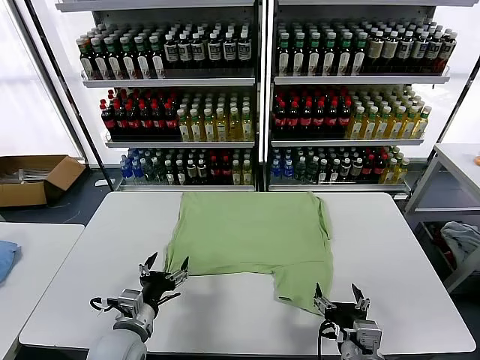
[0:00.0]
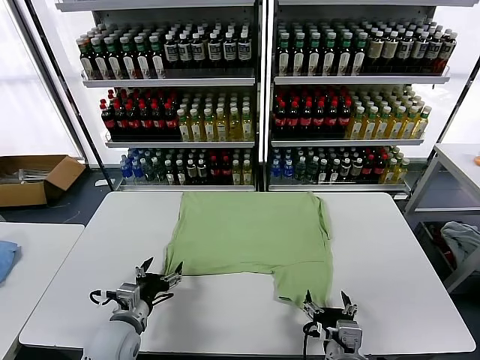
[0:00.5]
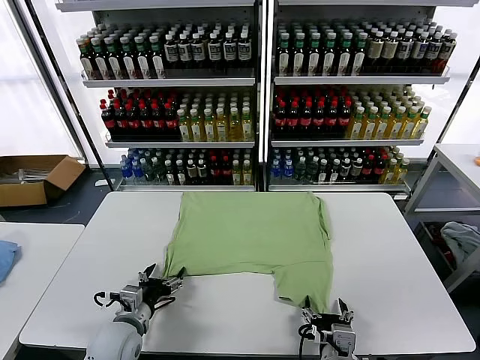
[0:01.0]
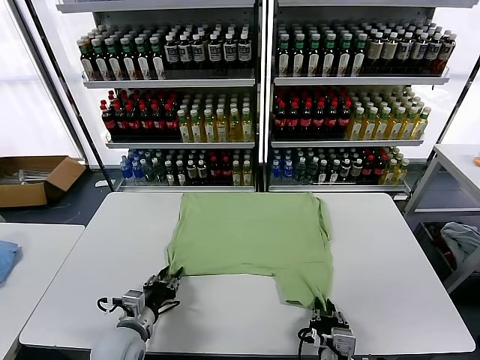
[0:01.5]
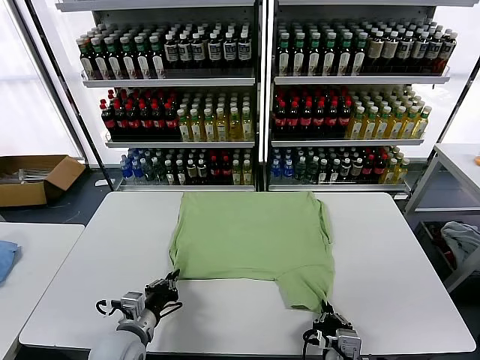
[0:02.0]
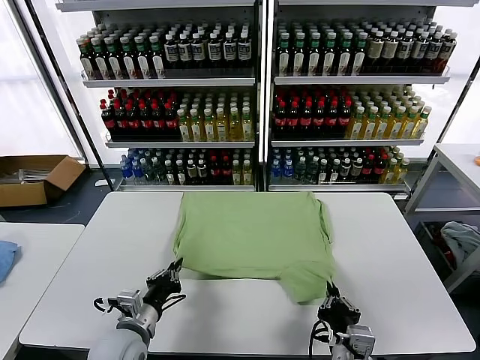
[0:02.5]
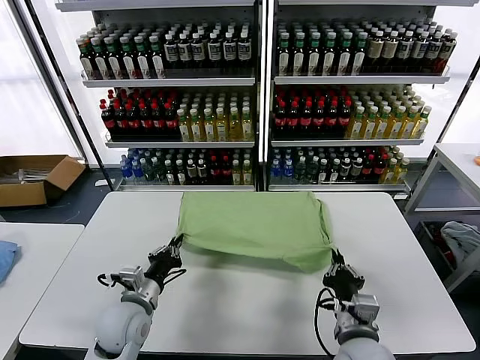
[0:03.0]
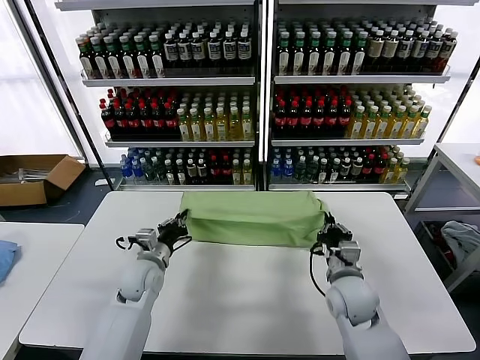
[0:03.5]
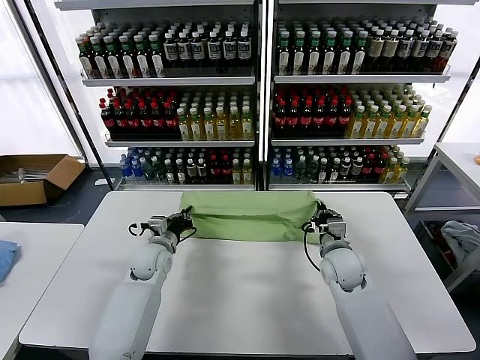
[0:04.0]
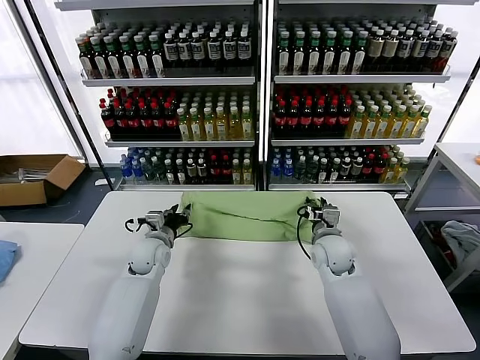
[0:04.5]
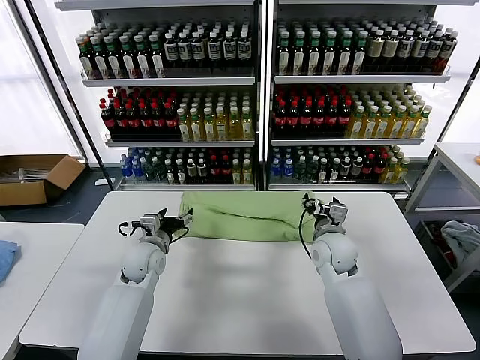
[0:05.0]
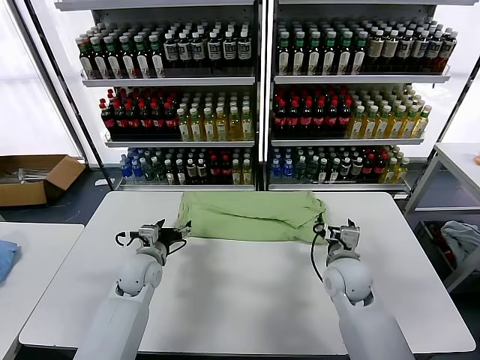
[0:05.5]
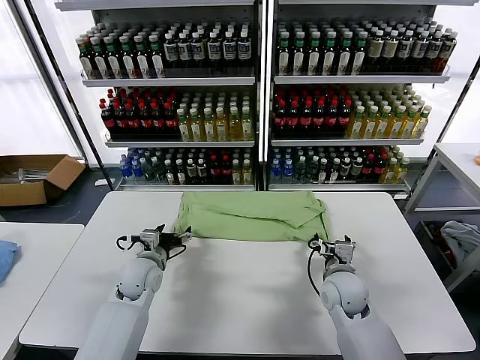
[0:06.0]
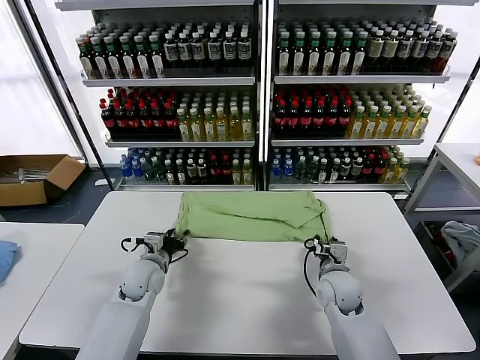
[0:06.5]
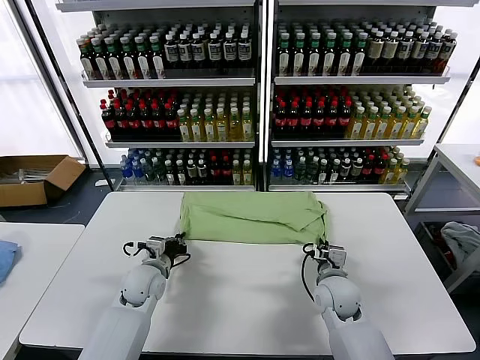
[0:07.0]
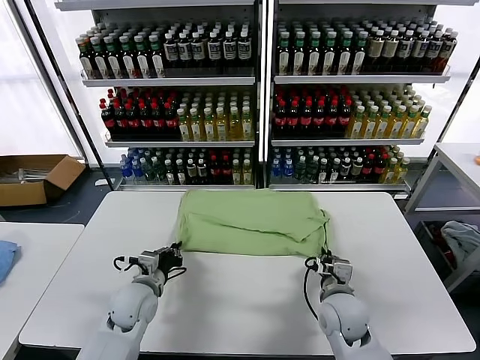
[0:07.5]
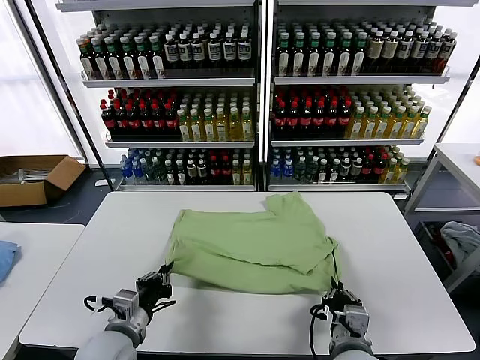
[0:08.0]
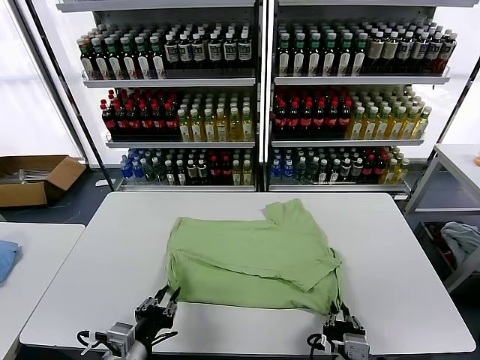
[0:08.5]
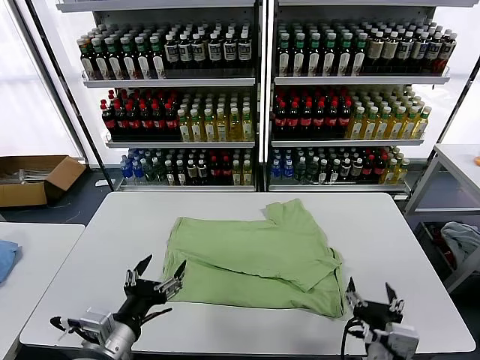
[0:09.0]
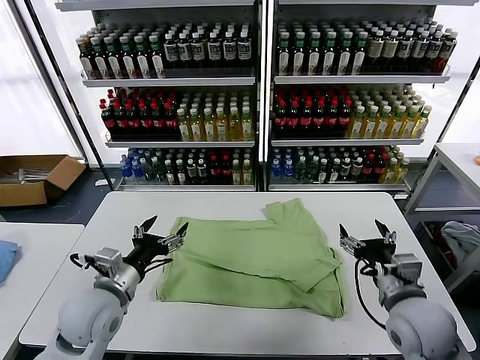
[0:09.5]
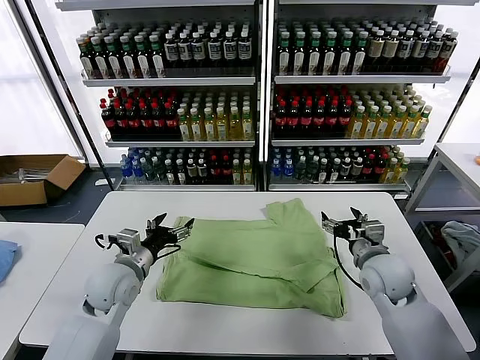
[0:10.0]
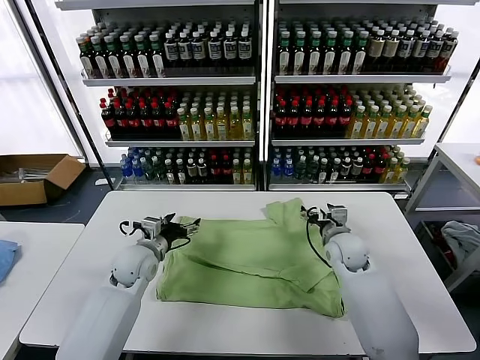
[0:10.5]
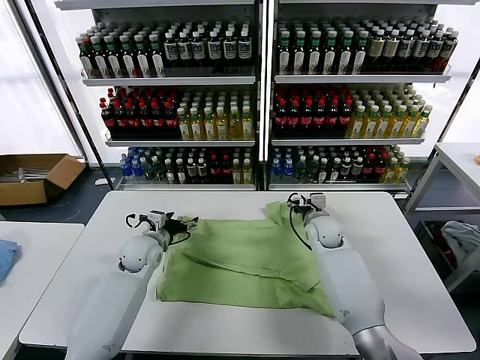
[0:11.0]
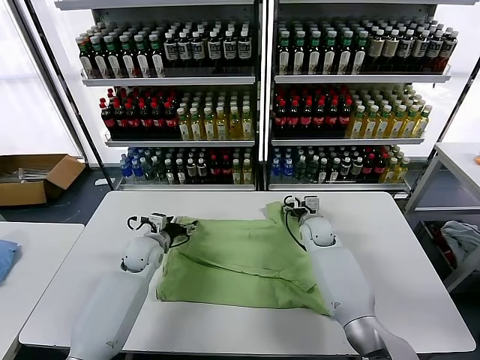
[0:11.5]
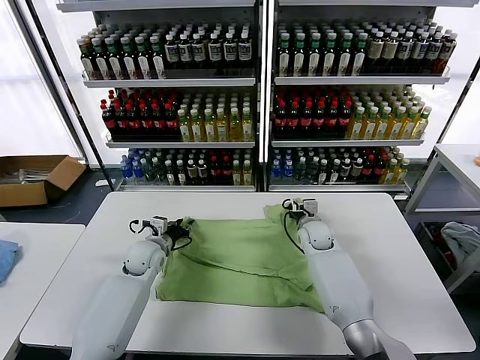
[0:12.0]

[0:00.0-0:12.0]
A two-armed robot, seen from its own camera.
Task of the whole recording: fold and organize the clothes.
Step, 0:00.0 to 0:01.5: use both grippers simultaneously to clamp the lower edge of the clothing fabric.
Step, 0:02.0 to 0:04.5: use both grippers to drag the lower edge of the fabric forward and fold it over the upper edge.
Step, 0:05.0 to 0:08.5: Drag the clothes downward with both gripper.
0:02.0 to 0:04.0: Both grippers travel together forward, about 25 cm.
0:04.0 to 0:06.0: The two grippers go approximately 5 cm backward. The right gripper opens its fingers, while the left gripper opens.
0:06.0 to 0:08.0: The two grippers go about 20 cm backward. The right gripper closes its fingers, while the left gripper closes.
0:08.0 to 0:10.0: The right gripper heads forward and to the right, covering about 20 cm, and opens; the left gripper is displaced forward by some 15 cm, and opens its fingers.
0:10.0 to 0:12.0: The left gripper goes approximately 15 cm forward and downward, and closes up, while the right gripper shifts roughly 20 cm forward, downward and to the left, and closes its fingers.

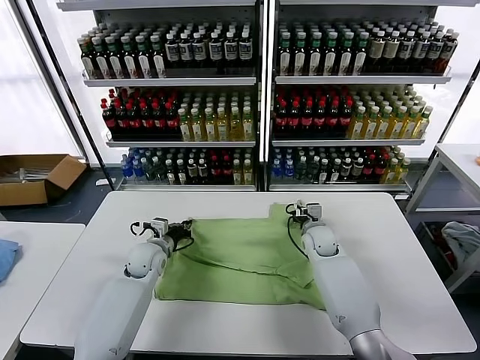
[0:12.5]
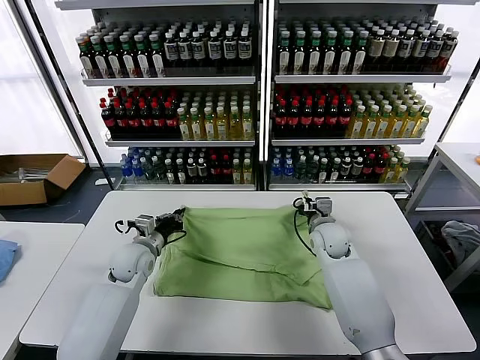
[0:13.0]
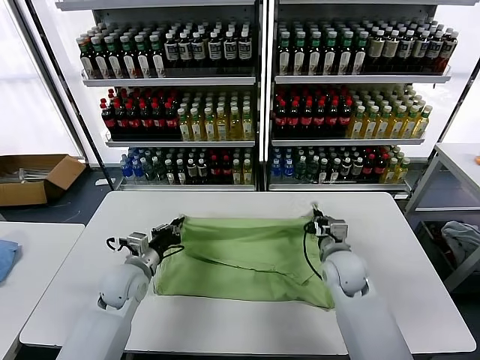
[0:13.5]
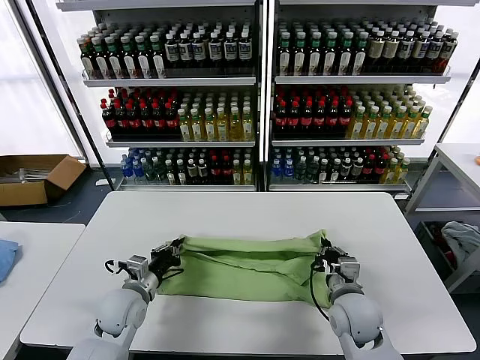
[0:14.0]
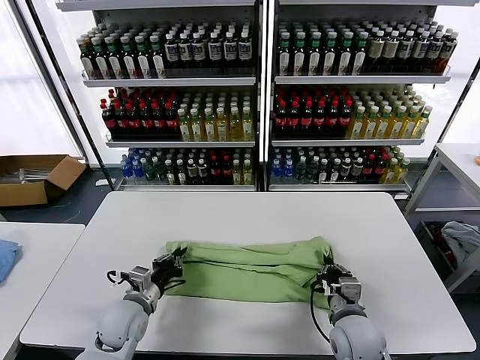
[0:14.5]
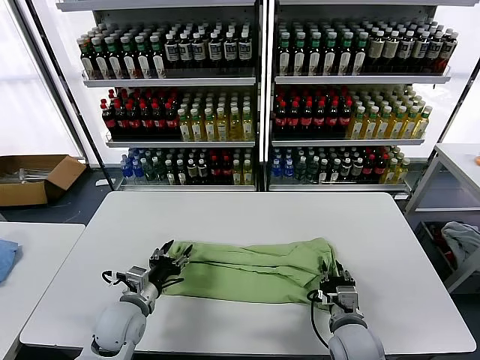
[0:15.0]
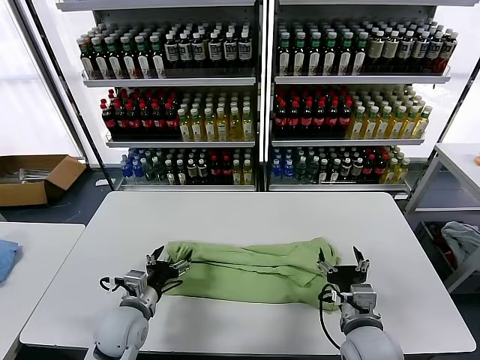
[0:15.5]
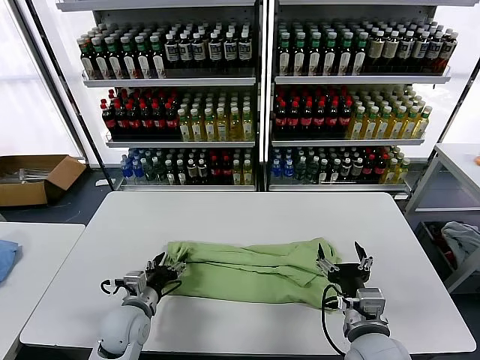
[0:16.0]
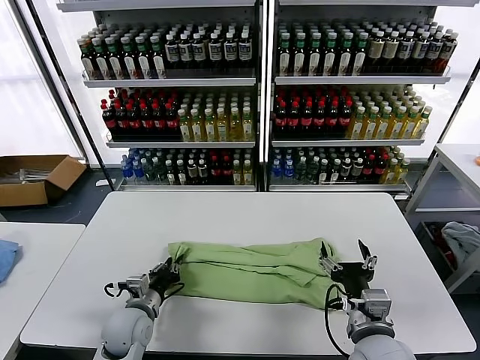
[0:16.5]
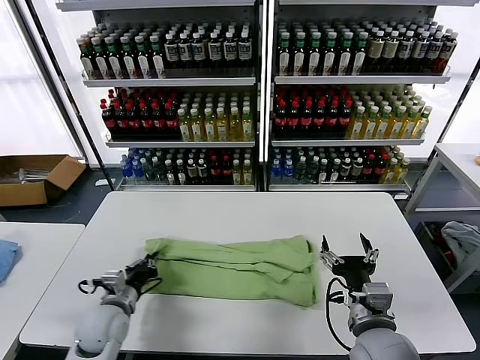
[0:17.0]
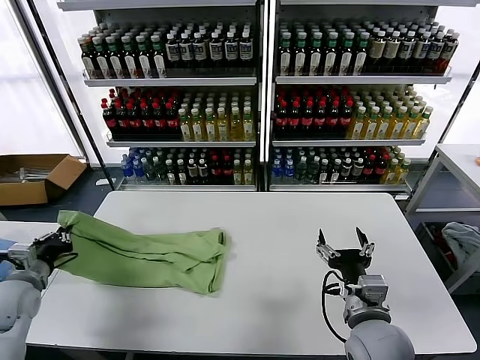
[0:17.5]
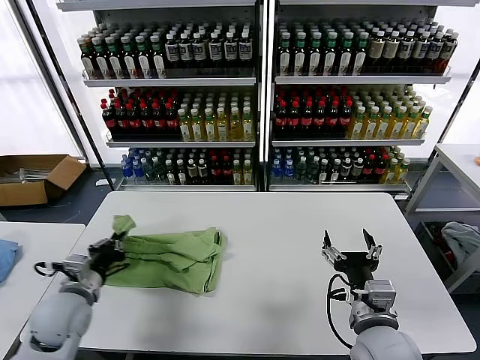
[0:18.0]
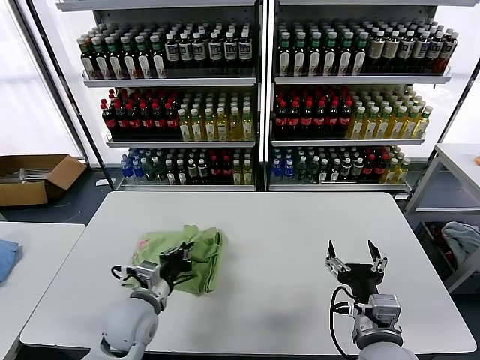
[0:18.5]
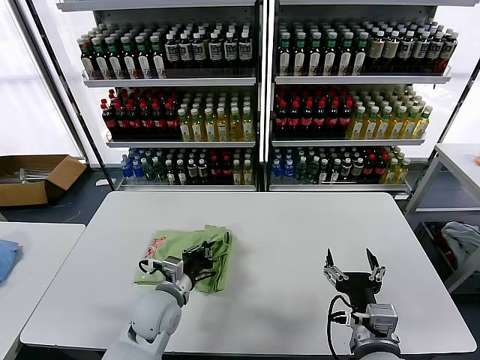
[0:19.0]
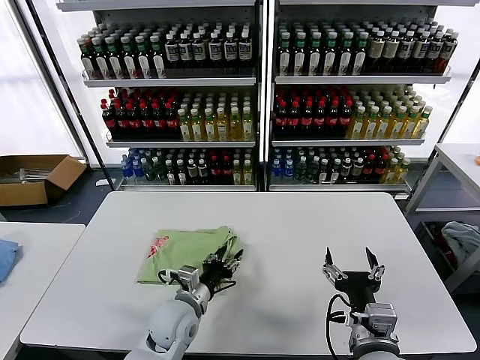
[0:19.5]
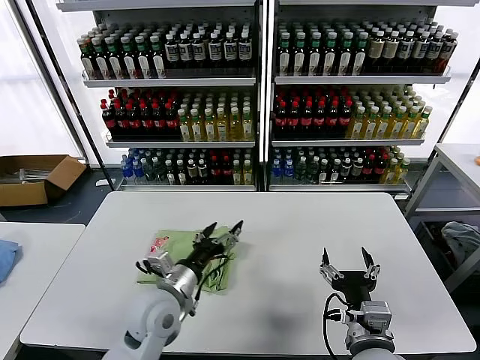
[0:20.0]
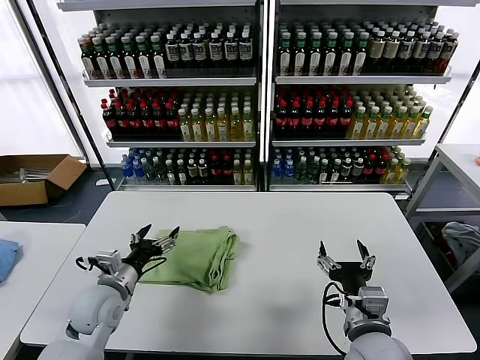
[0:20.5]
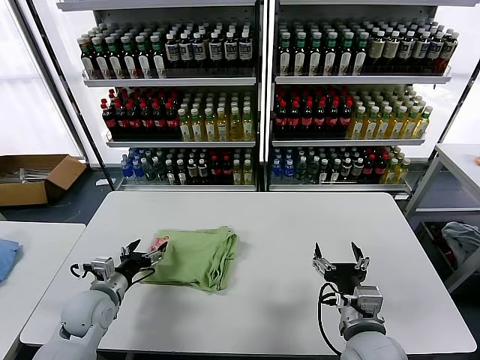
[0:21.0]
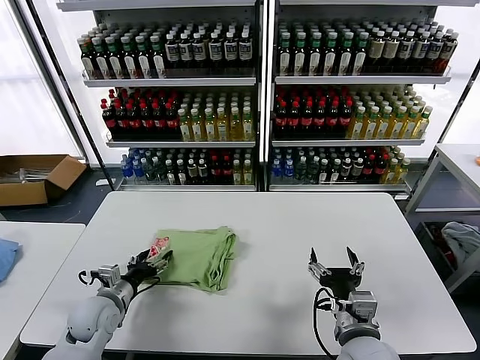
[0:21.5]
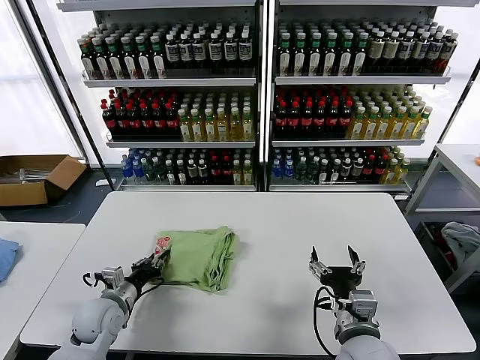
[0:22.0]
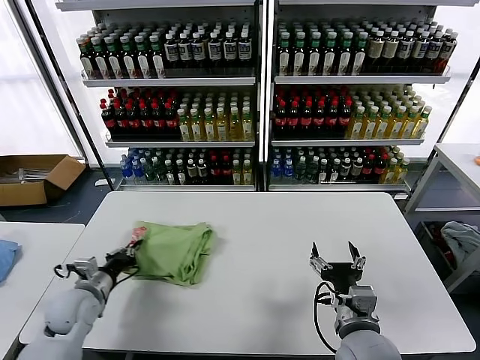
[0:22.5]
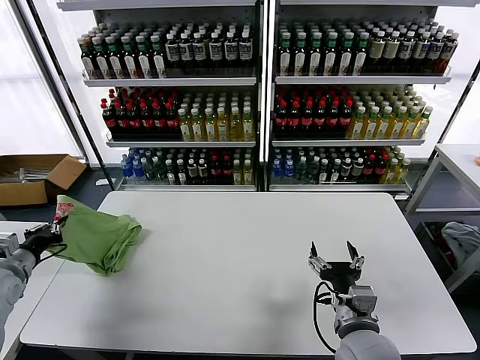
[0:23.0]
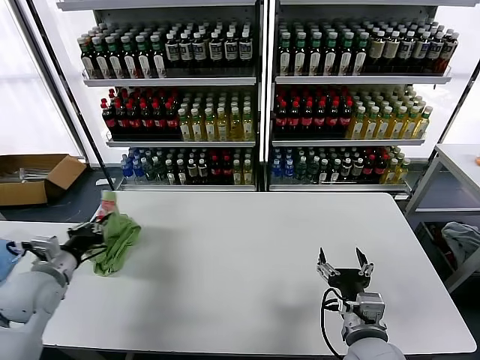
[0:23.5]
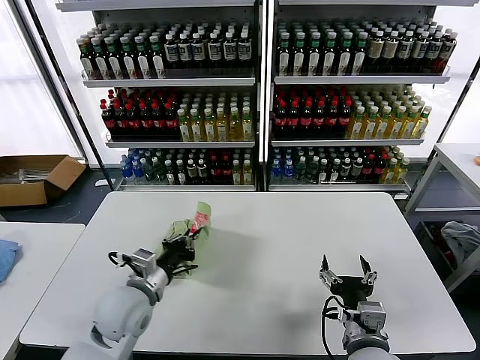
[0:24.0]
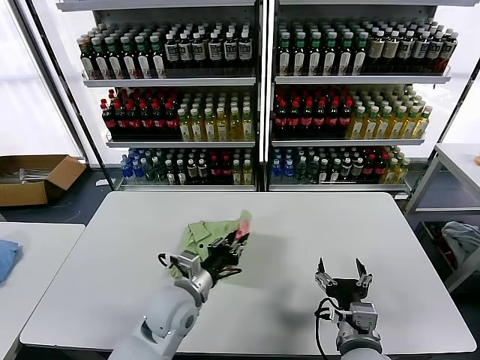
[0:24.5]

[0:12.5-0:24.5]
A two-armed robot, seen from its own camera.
Task of the whole recording: fold and organize the clothes.
Step, 0:12.5 to 0:15.0: use both grippers to drag the upper edge of the fabric backward and fold it over the lower edge.
Step, 0:15.5 to 0:16.5: use the left gripper to clamp the left edge of the fabric.
Step, 0:17.0 to 0:19.5: use the left gripper to drag the left edge of the fabric to the left and folds it over the right edge.
0:12.5 to 0:14.5: The left gripper travels backward by approximately 15 cm; the right gripper shifts about 25 cm backward.
0:14.5 to 0:16.5: The left gripper opens, then closes once more; the right gripper is displaced upward and backward by some 10 cm, and opens.
0:16.5 to 0:18.5: The left gripper goes roughly 5 cm upward, and goes to the left and returns, about 20 cm each way.
0:18.5 to 0:20.5: The left gripper heads to the left, covering roughly 5 cm, and opens its fingers.
0:20.5 to 0:22.5: The left gripper heads to the left, covering roughly 5 cm, and closes up.
0:22.5 to 0:24.5: The left gripper moves to the right, roughly 20 cm.

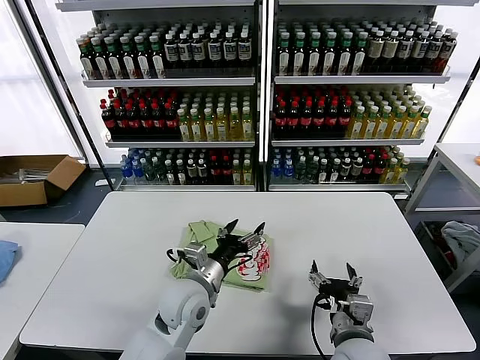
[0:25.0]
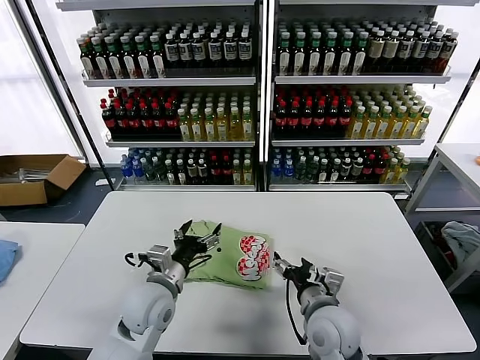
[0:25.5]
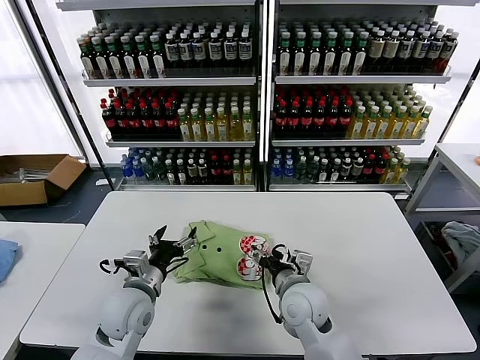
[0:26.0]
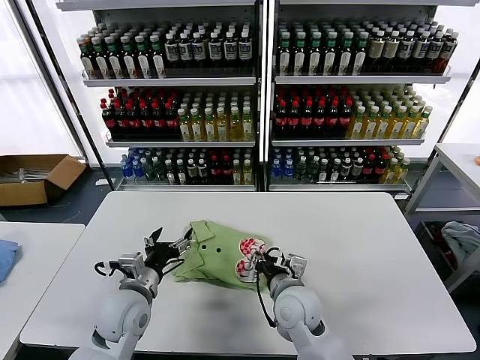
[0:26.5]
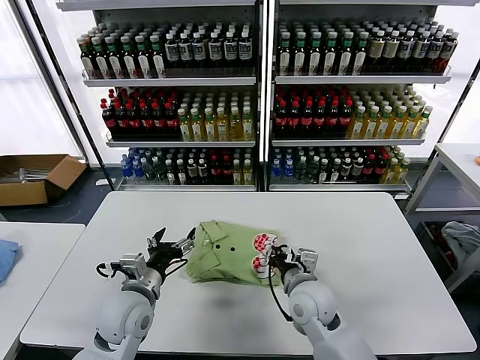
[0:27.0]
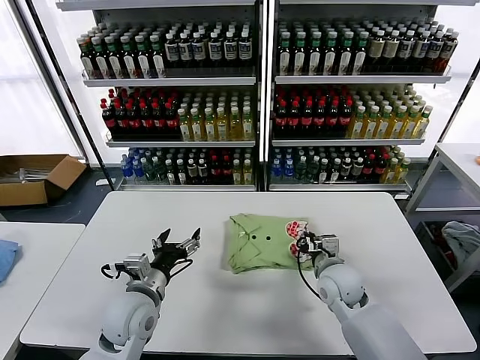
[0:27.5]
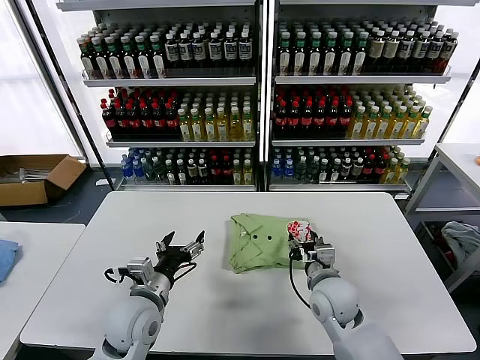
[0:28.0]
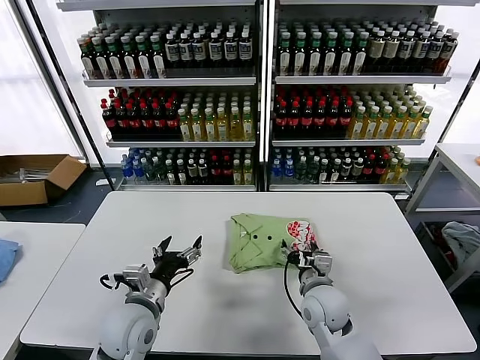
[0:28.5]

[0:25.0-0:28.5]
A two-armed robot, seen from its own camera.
Task of the whole recording: fold and organize the clothes.
0:25.0 to 0:27.0: The left gripper goes approximately 10 cm to the left, while the right gripper is displaced forward and to the left by some 15 cm, and closes up.
0:27.0 to 0:28.5: The right gripper opens.
